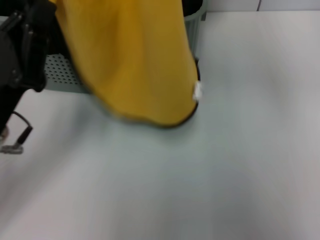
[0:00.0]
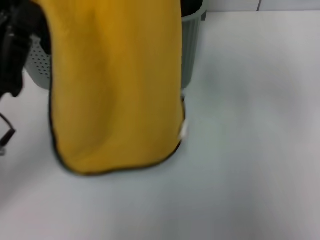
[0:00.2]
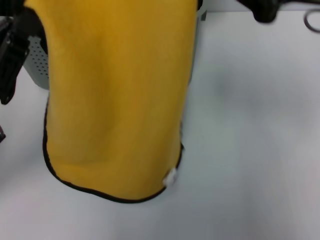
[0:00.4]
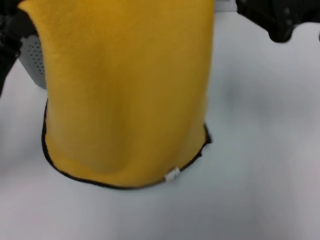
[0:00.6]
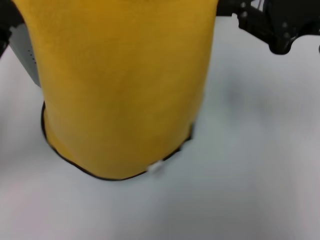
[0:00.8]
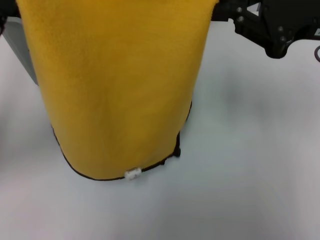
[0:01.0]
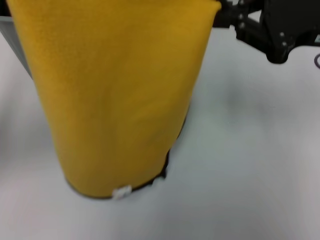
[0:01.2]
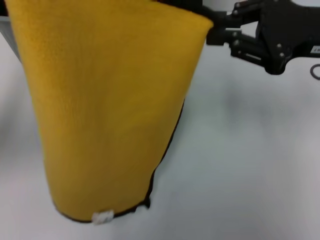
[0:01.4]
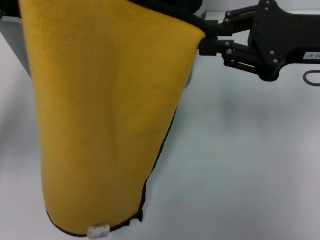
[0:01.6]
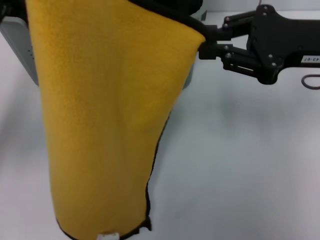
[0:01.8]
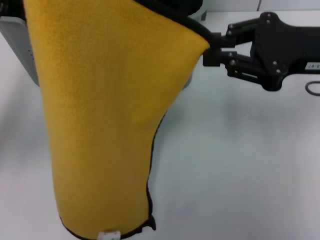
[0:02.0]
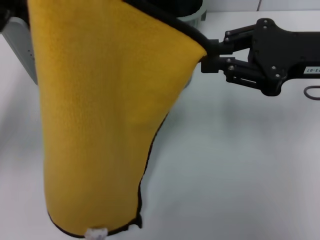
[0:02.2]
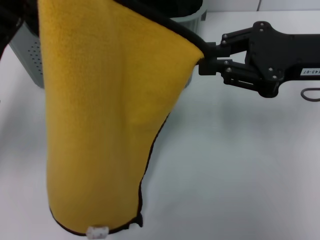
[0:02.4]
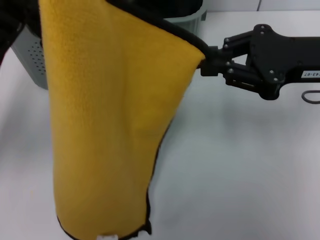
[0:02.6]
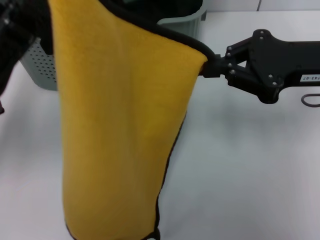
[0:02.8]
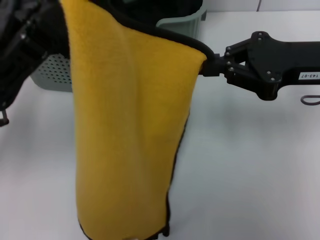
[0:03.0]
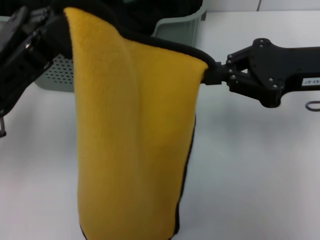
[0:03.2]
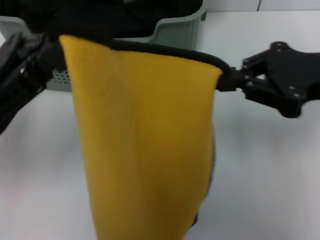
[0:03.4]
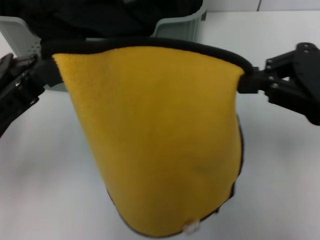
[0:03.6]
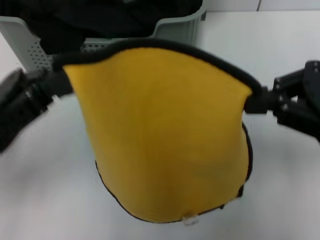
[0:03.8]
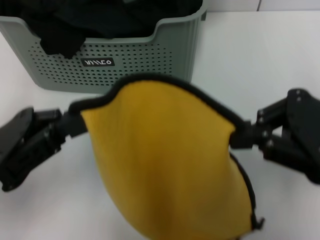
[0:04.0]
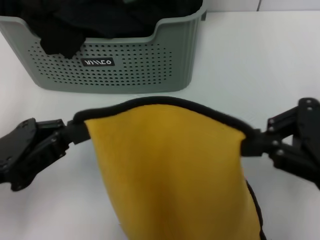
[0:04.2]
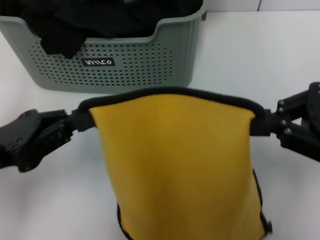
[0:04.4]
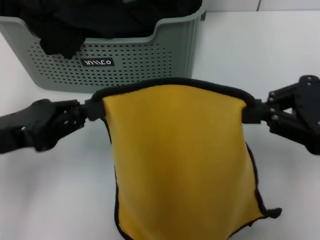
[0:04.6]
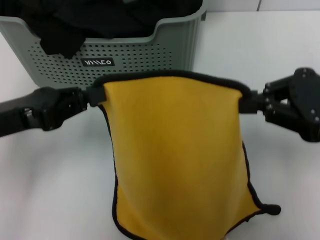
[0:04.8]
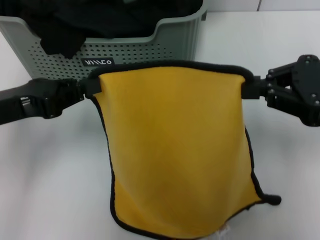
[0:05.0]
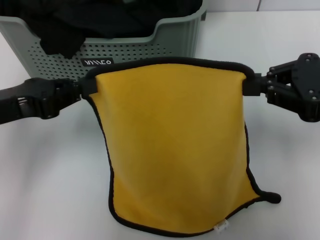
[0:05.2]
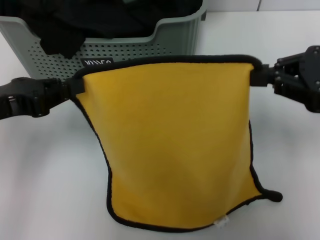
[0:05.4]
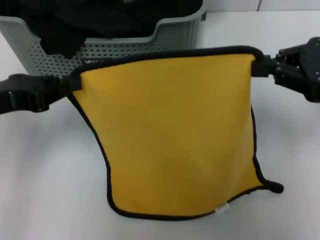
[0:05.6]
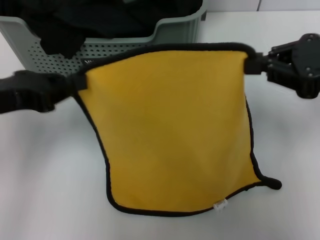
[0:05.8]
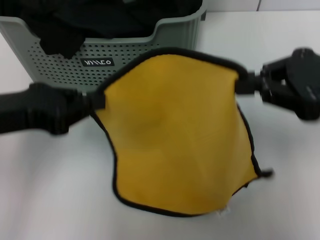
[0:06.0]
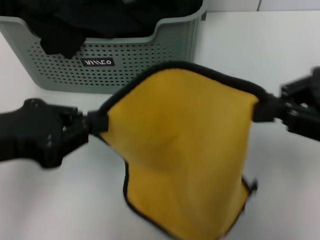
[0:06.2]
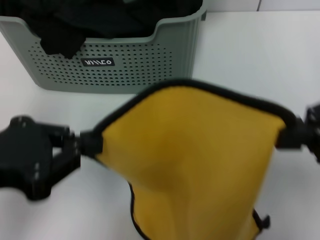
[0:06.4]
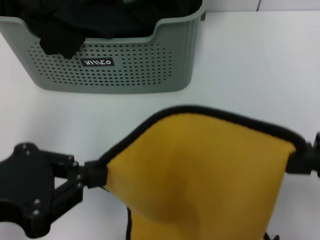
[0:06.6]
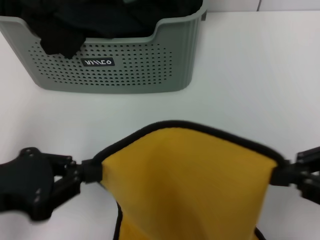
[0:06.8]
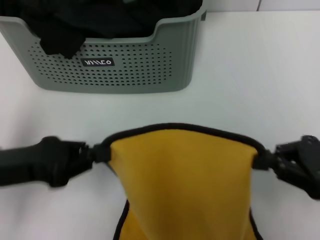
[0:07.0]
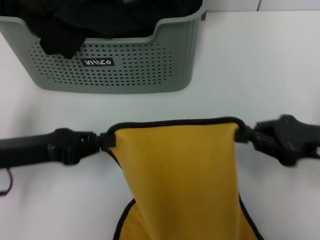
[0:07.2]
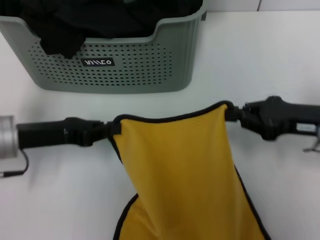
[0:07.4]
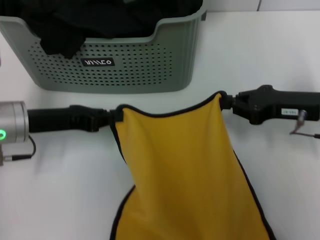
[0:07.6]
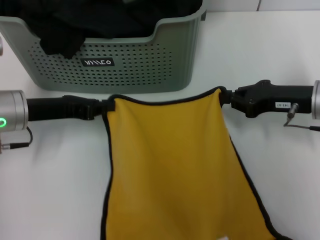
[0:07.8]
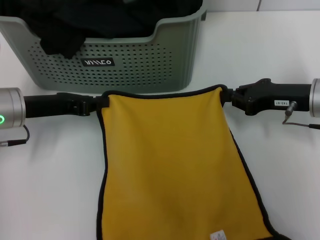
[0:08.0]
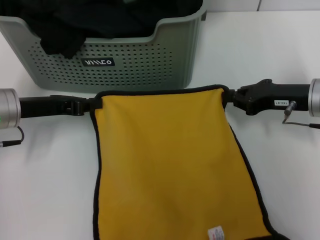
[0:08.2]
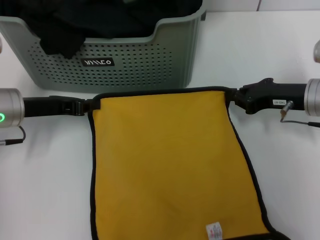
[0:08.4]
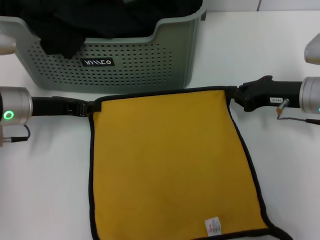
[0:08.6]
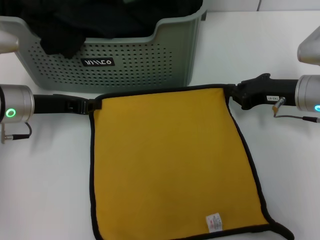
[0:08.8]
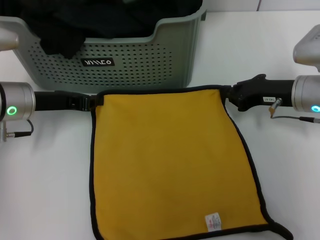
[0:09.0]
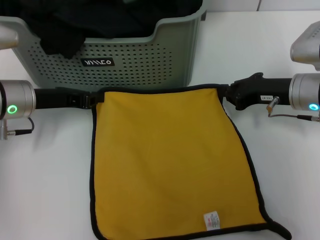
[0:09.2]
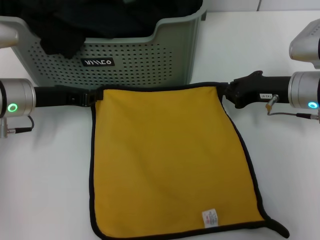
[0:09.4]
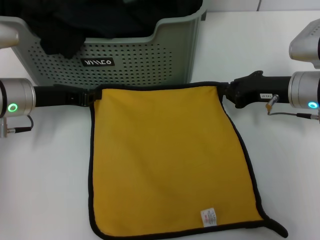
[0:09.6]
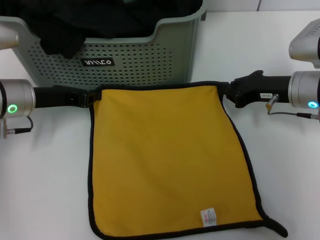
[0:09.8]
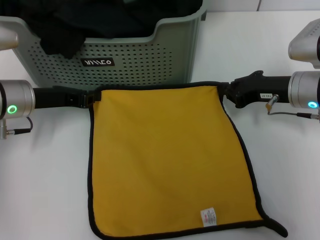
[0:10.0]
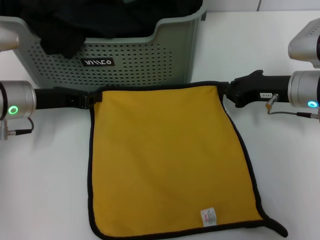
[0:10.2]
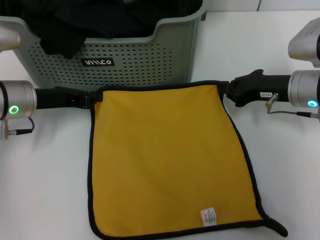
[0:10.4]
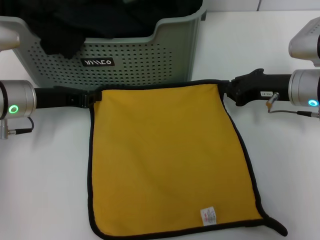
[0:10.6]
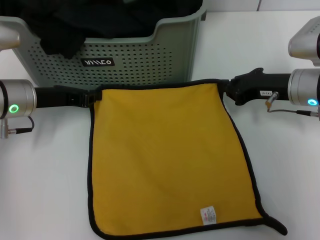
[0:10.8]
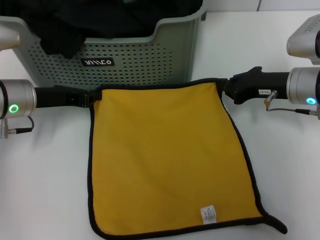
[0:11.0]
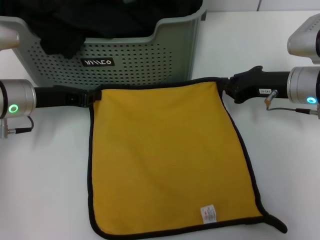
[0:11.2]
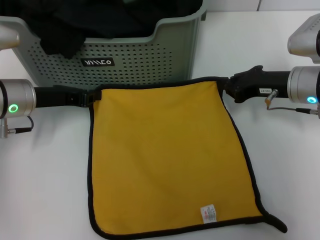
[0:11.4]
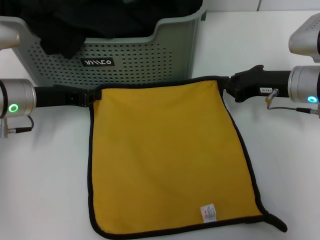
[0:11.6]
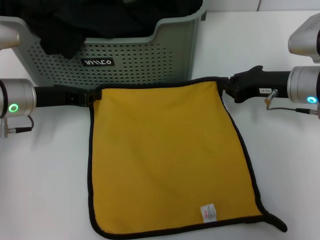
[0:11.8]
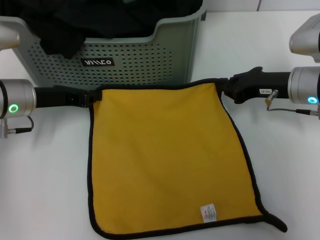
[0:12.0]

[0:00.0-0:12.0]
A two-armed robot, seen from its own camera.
Task of the whole recording: pick up the towel from the storage box and lay it flat on the table.
0:00.0 to 0:01.6: The left gripper shifts roughly 10 cm upward. The right gripper travels downward and to the right by about 15 cm.
0:03.0 to 0:04.4: The left gripper shifts some 5 cm backward, while the right gripper travels backward by approximately 10 cm.
0:04.4 to 0:06.0: The left gripper shifts about 5 cm upward.
0:06.0 to 0:07.6: The two grippers go approximately 15 cm downward and forward.
0:07.6 to 0:09.0: The right gripper ends up approximately 5 cm from where it was.
0:09.0 to 0:12.0: Both grippers stay put.

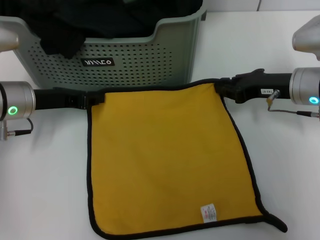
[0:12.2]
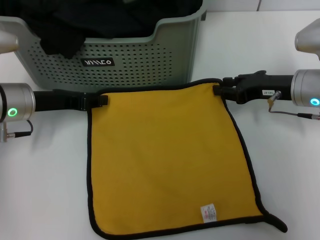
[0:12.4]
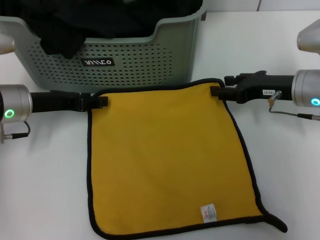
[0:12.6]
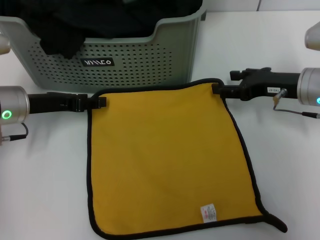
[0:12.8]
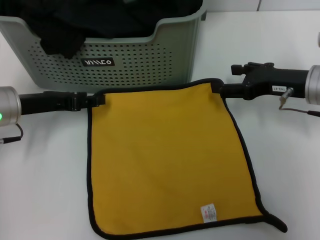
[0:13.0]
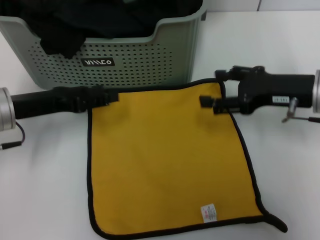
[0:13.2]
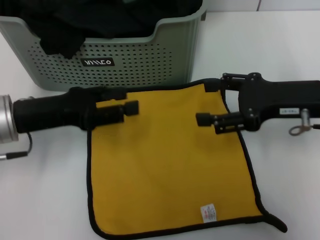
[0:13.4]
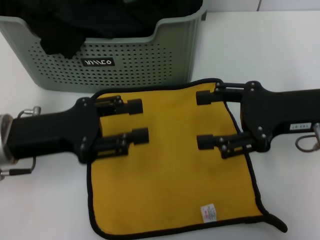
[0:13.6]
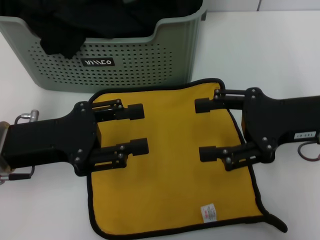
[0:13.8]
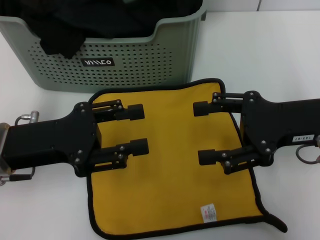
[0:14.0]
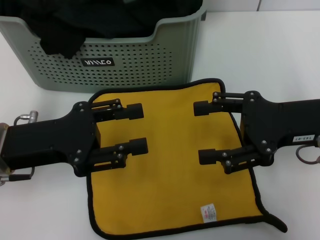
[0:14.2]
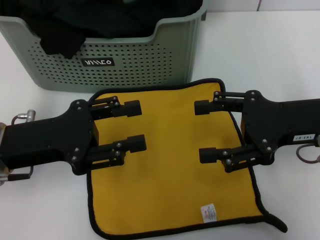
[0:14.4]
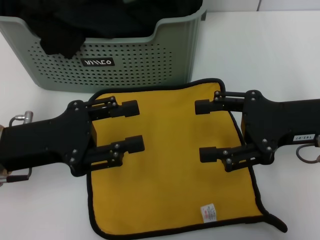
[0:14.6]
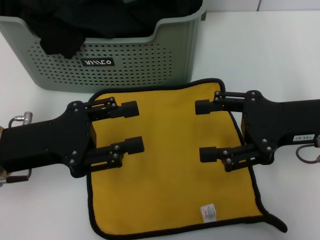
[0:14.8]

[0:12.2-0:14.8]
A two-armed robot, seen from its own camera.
Task of the whole recording: pick up the towel from the storage box and lay it flat on the table.
0:12.2 to 0:13.4: The left gripper travels backward by approximately 5 cm, and opens. The right gripper travels backward and upward by about 10 cm, and opens up.
